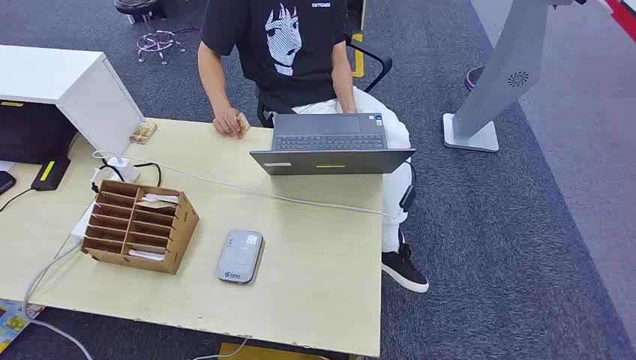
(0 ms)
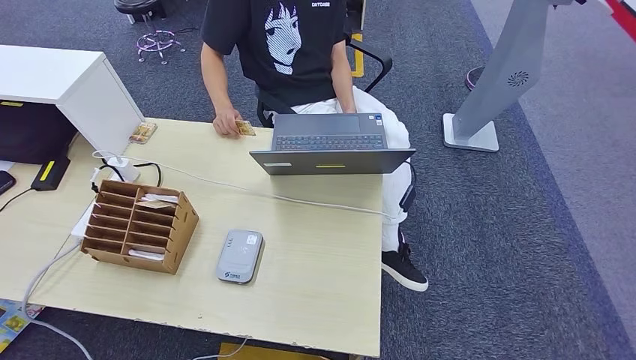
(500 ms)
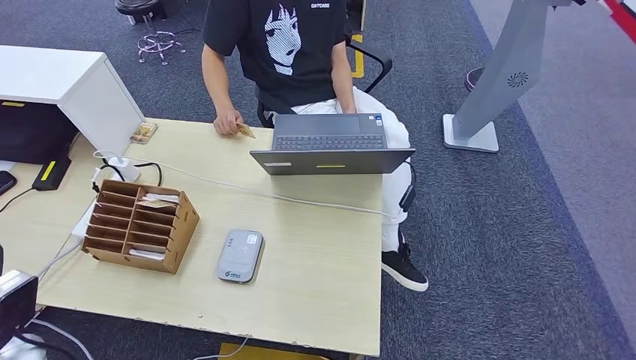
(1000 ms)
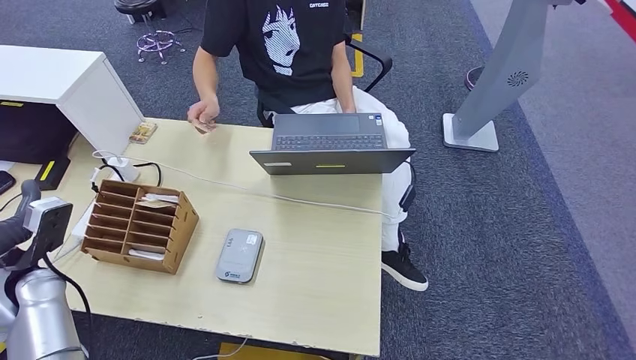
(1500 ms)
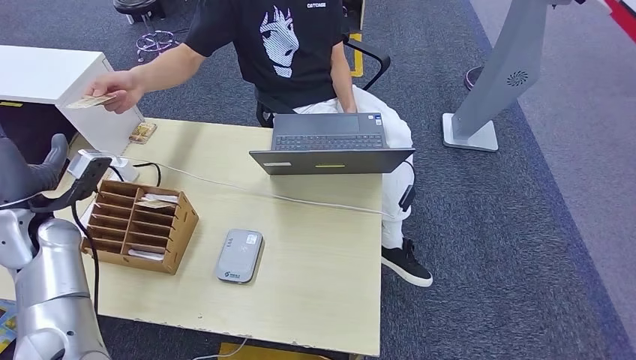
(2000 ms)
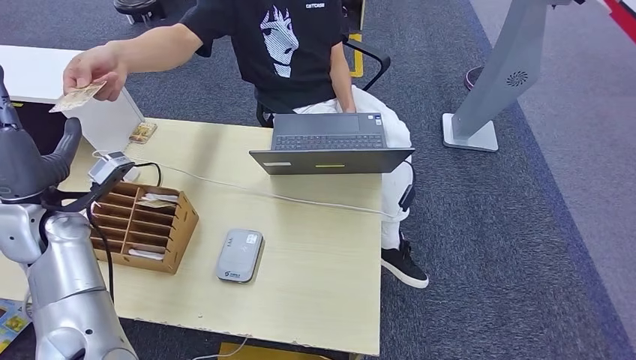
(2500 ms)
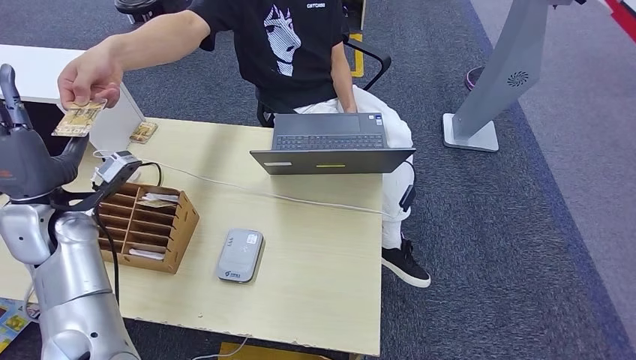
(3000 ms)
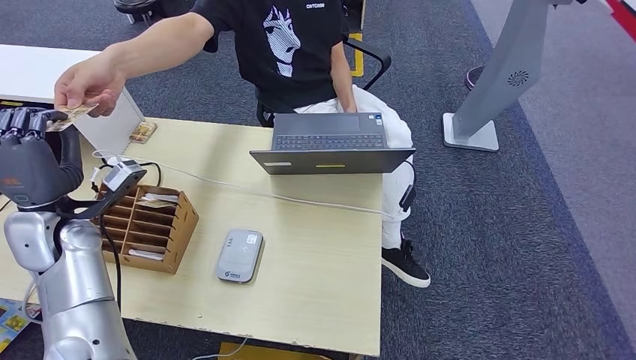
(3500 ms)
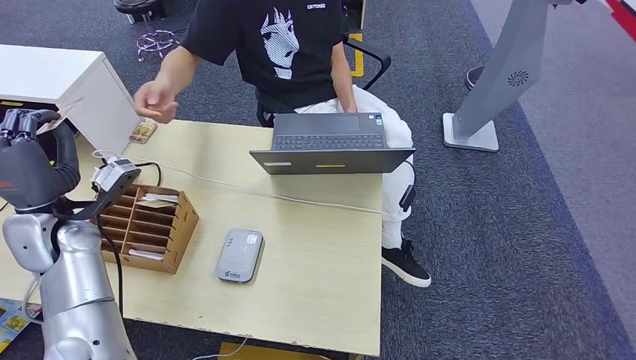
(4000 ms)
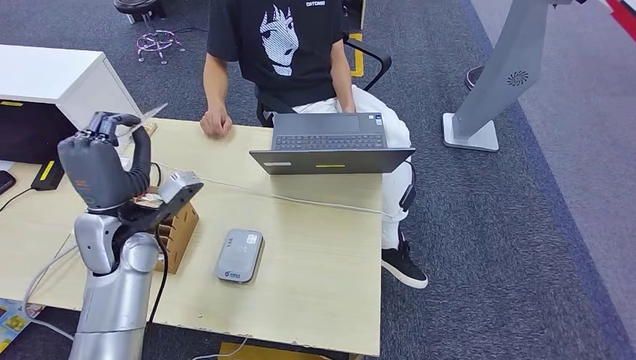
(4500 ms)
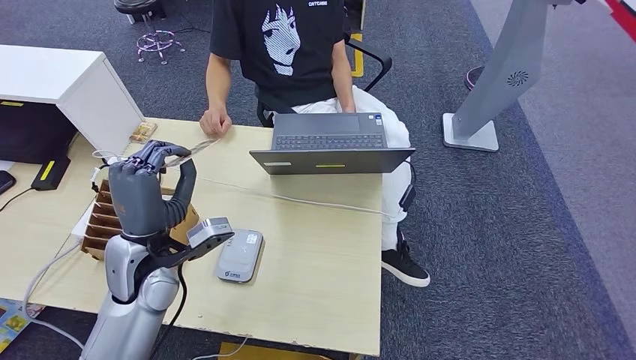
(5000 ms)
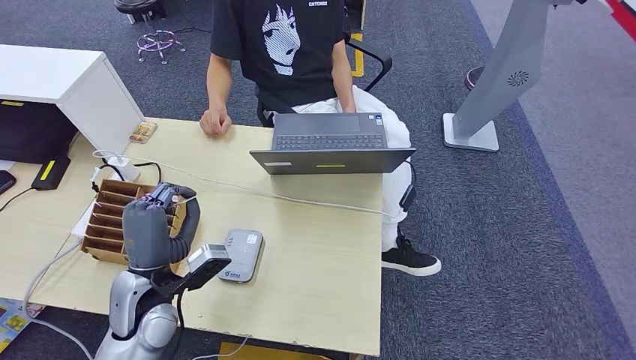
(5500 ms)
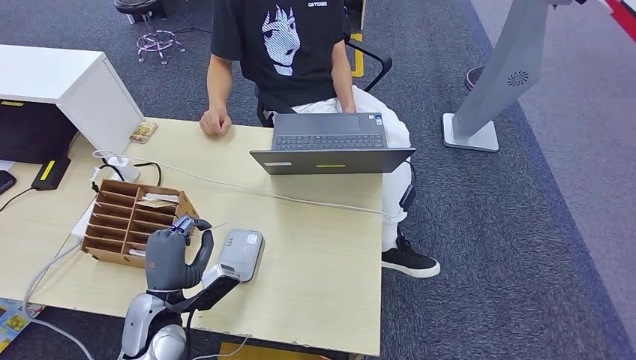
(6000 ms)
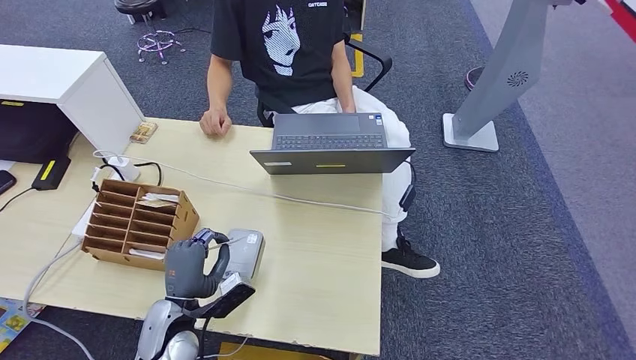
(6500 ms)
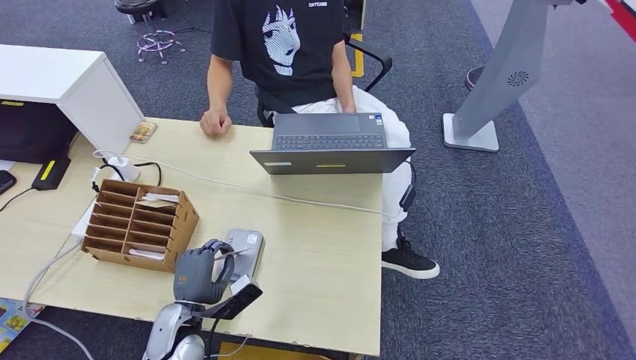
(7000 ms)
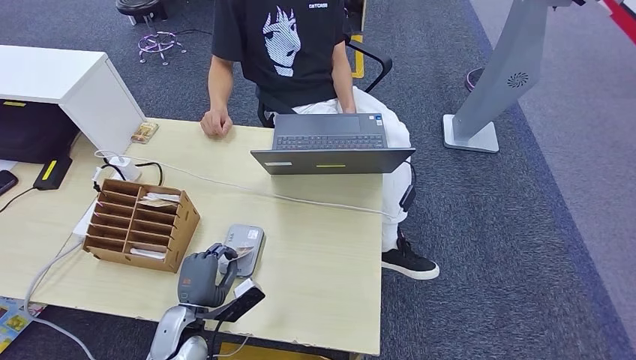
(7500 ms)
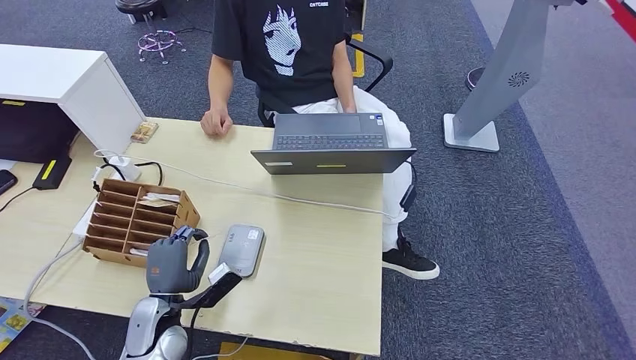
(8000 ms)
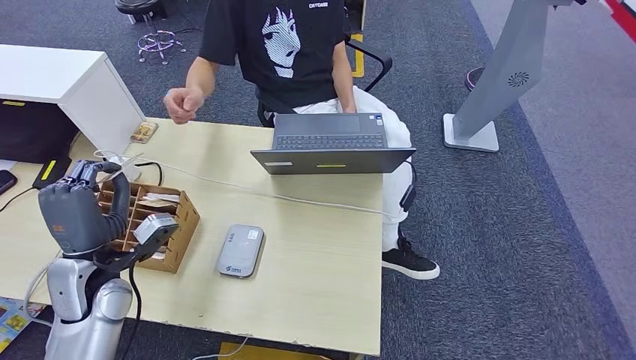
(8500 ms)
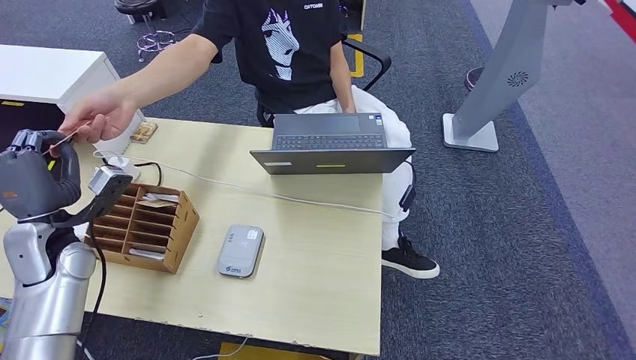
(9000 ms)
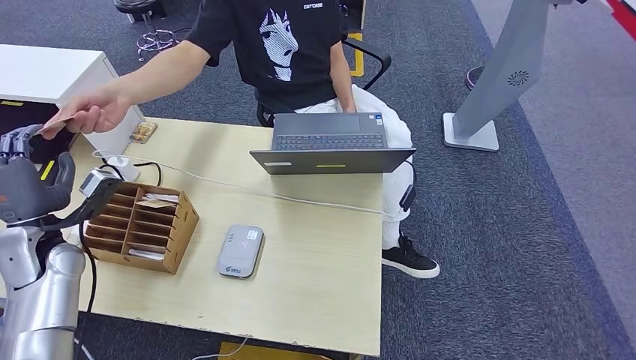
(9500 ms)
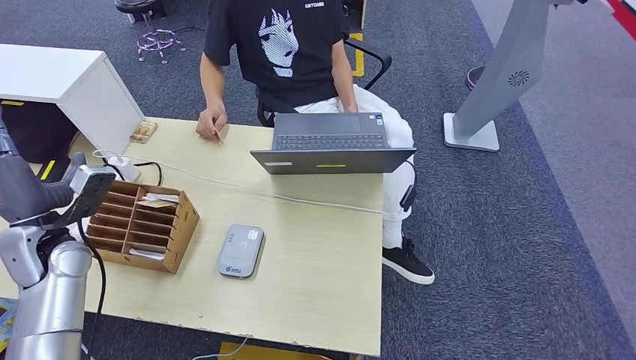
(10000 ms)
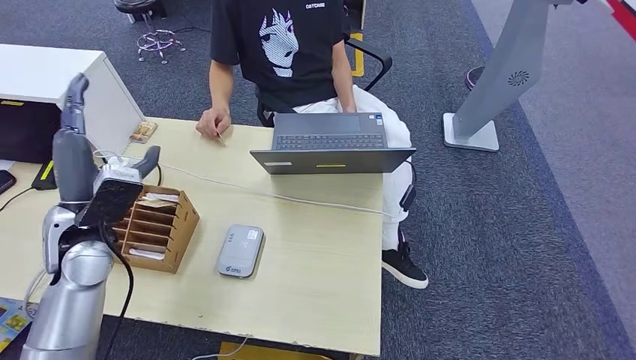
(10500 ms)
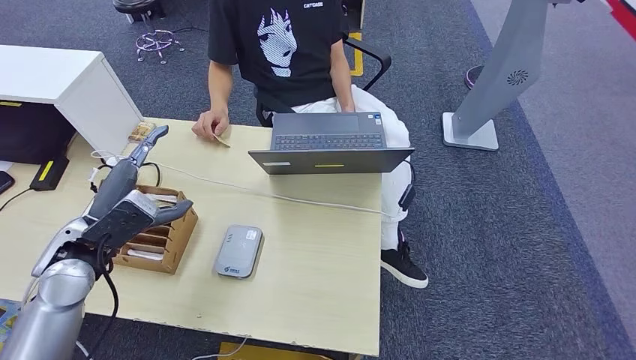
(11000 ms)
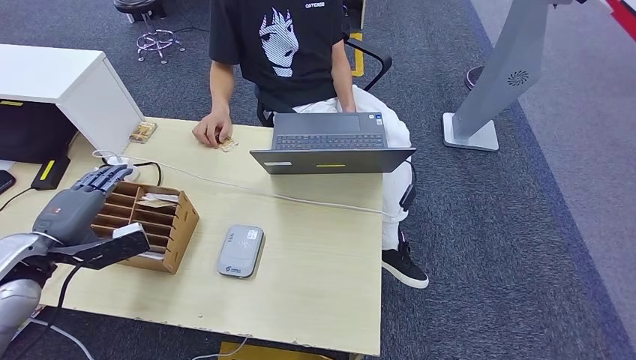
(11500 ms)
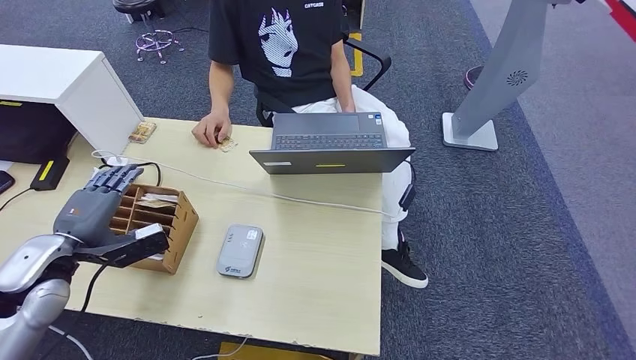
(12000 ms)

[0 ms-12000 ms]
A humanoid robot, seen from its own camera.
Step, 0 ms to 3000 ms: Take the ID card from the person's hand.
Step, 3500 ms to 8000 ms: Place the ID card on the card reader.
Step, 8500 ms to 9500 ms: Hand the ID card to the person.
2000 ms to 4000 ms: There are only small adjustments of the hands.
4000 ms to 6000 ms: The left hand travels to the right, downward and backward by approximately 20 cm.
8000 ms to 10000 ms: The left hand travels to the left, upward and forward by about 25 cm.
10000 ms to 12000 ms: The left hand goes to the right and returns, about 10 cm each way.

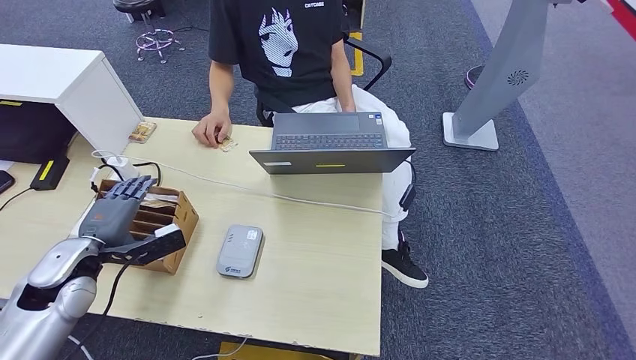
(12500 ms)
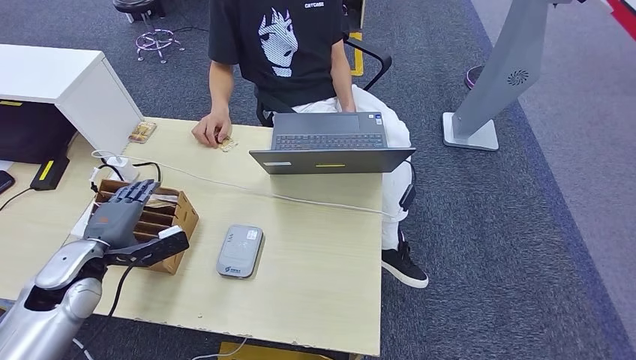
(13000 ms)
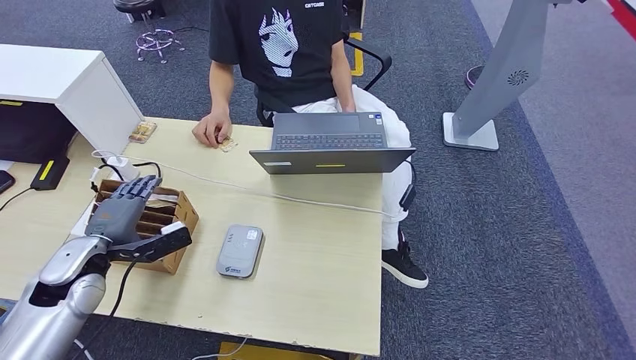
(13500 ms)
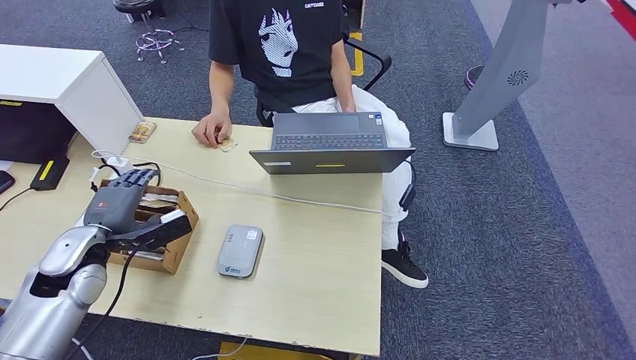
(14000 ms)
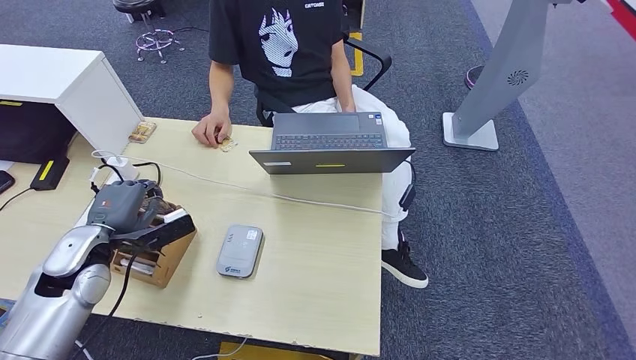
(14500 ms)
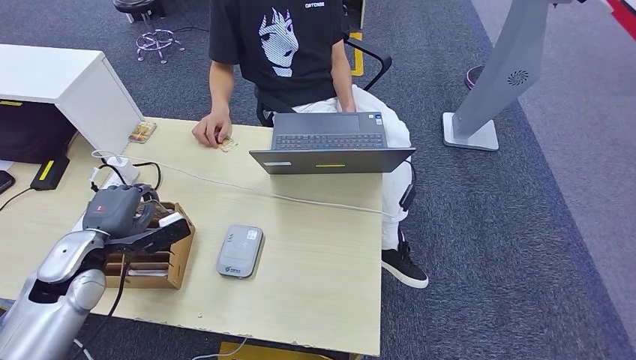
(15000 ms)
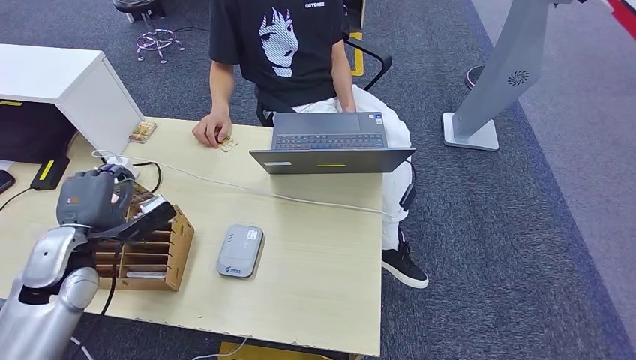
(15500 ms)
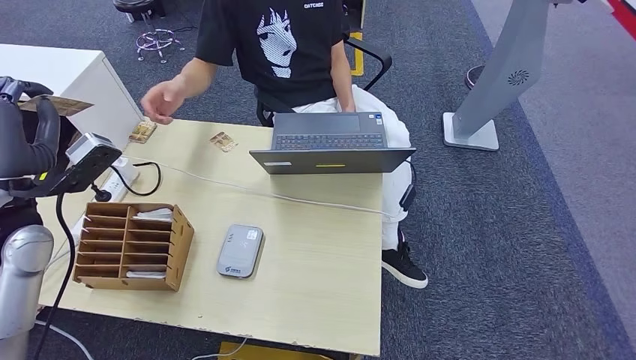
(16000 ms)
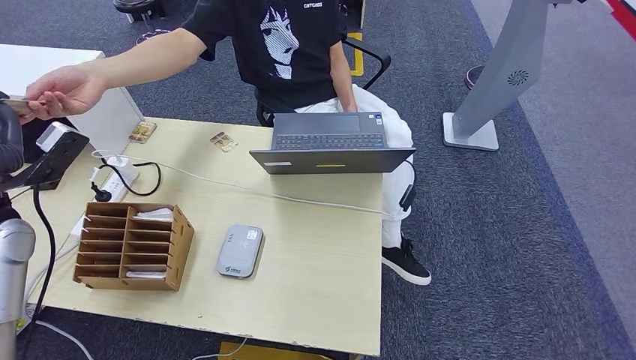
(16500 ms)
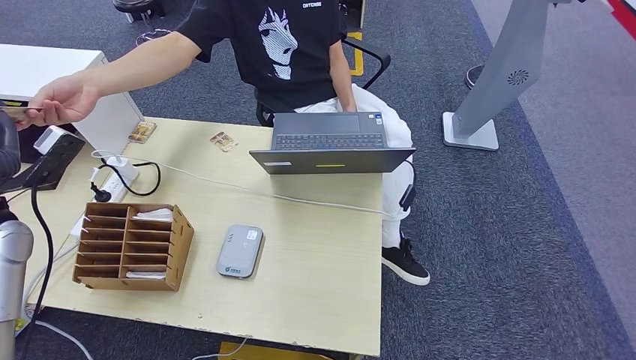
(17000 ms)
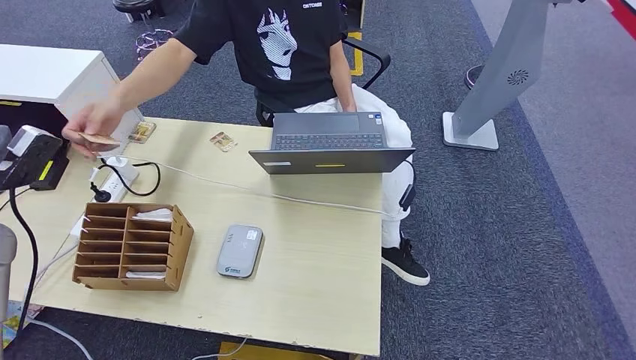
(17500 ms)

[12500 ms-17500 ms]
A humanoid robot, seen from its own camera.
Step, 12500 ms to 15000 ms: Pick up the room key from the key card box.
Step, 15500 ms to 17500 ms: Hand the room key to the person.
12500 ms to 15000 ms: The hands stay close to where they were, moving slightly.
15000 ms to 17500 ms: The left hand goes approximately 15 cm upward and to the left.
